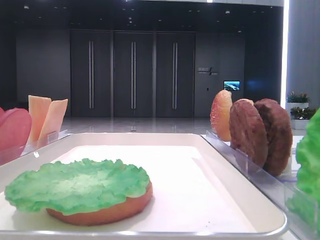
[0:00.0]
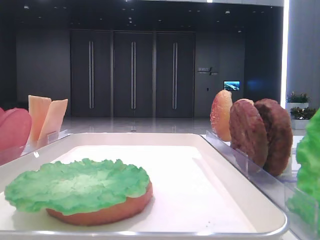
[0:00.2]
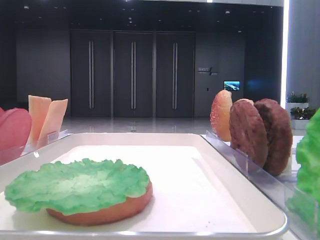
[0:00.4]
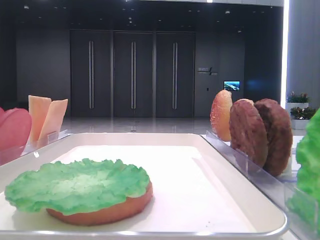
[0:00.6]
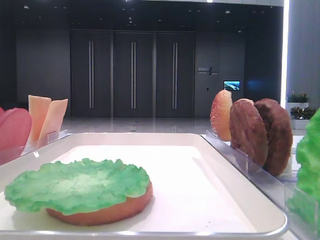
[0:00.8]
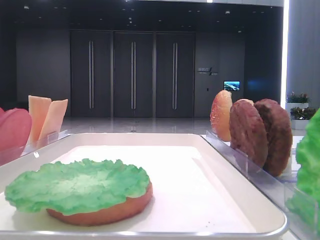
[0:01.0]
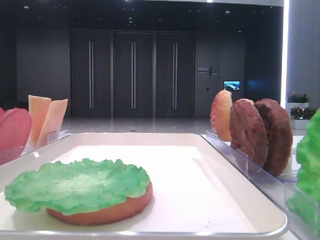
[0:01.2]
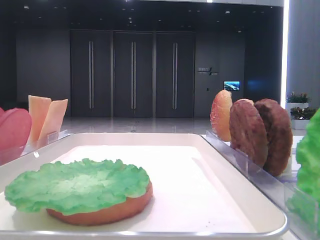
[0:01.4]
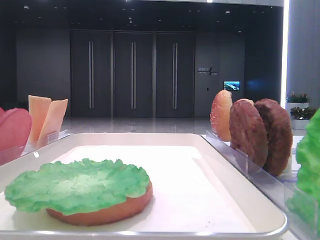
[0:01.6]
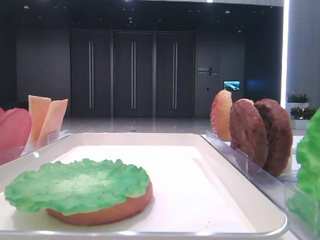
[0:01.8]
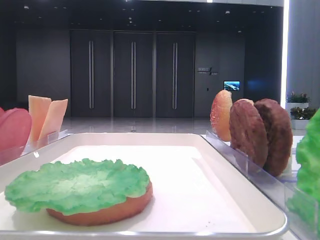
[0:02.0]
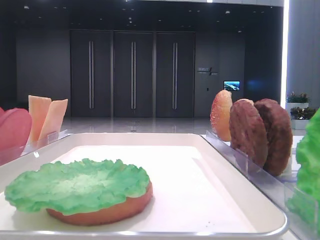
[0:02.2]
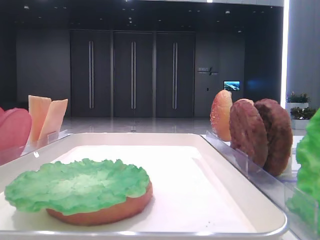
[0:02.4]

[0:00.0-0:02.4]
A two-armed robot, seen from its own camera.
0:01.2 to 0:02.4: Both grippers stay put.

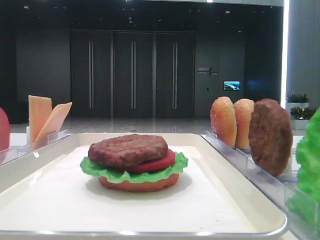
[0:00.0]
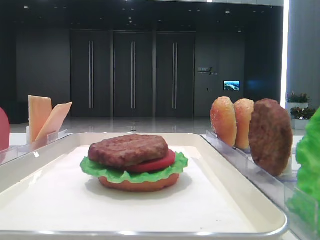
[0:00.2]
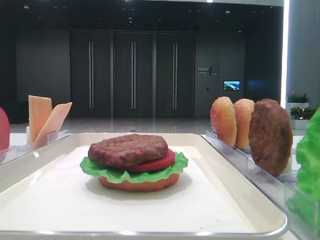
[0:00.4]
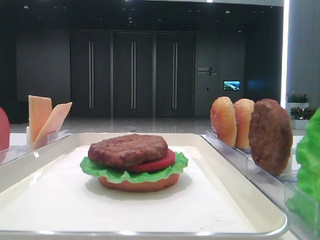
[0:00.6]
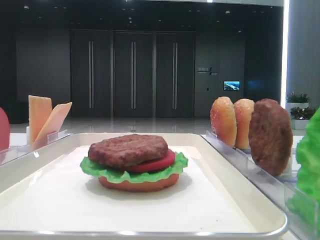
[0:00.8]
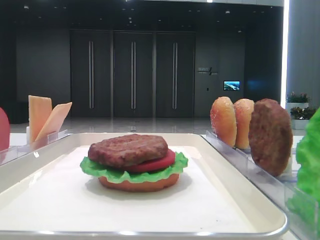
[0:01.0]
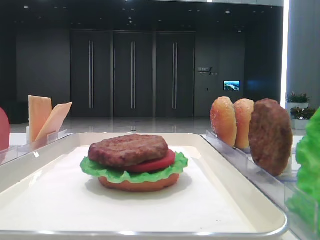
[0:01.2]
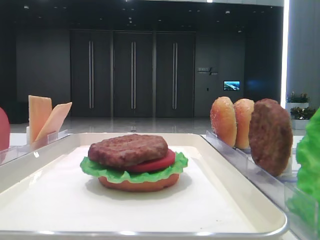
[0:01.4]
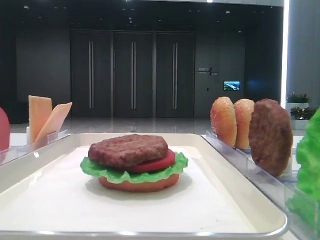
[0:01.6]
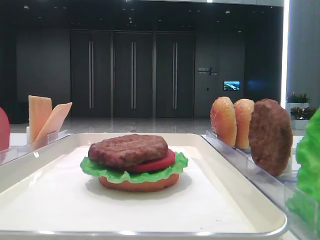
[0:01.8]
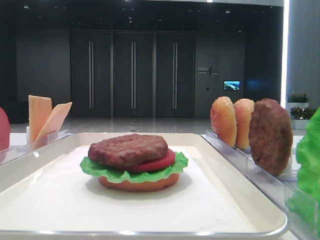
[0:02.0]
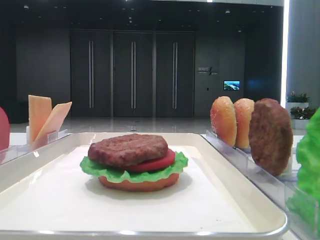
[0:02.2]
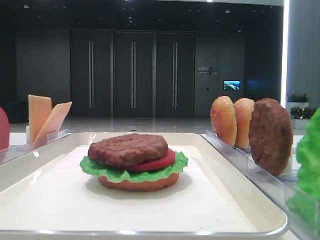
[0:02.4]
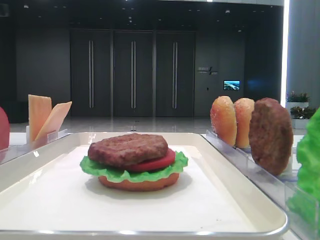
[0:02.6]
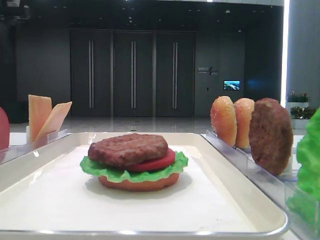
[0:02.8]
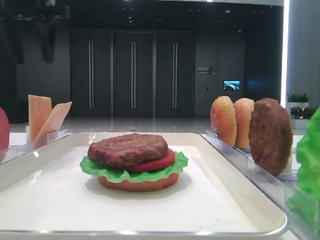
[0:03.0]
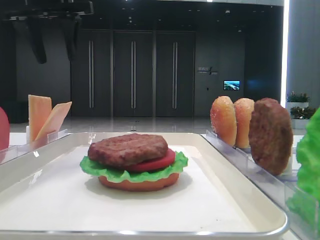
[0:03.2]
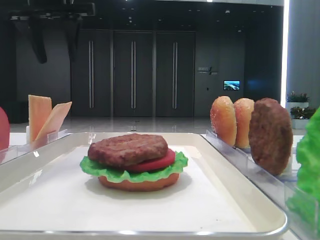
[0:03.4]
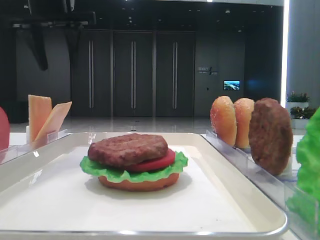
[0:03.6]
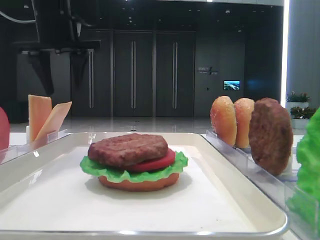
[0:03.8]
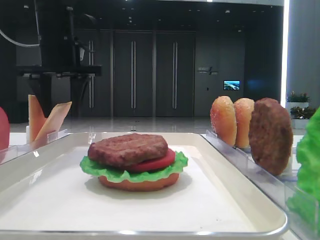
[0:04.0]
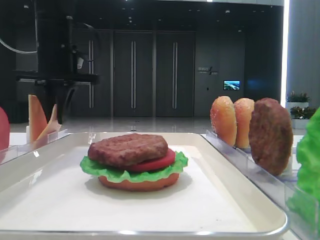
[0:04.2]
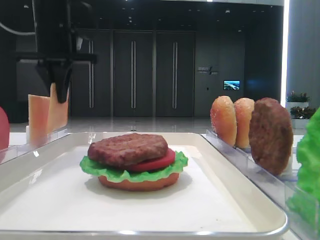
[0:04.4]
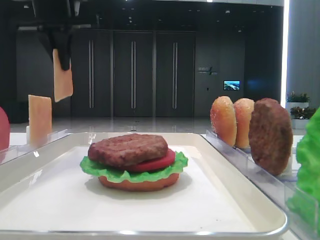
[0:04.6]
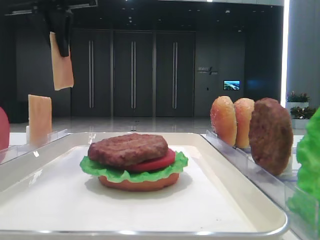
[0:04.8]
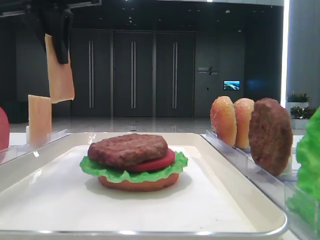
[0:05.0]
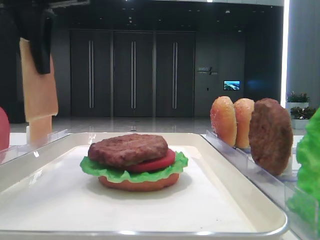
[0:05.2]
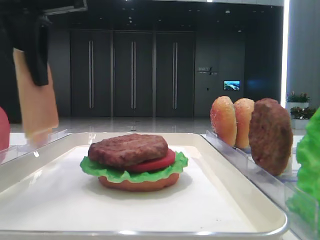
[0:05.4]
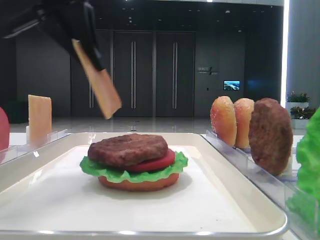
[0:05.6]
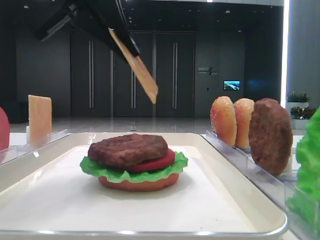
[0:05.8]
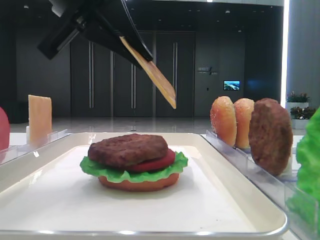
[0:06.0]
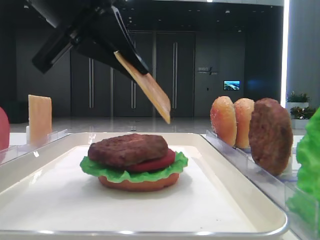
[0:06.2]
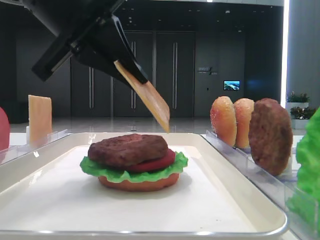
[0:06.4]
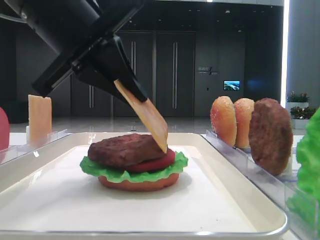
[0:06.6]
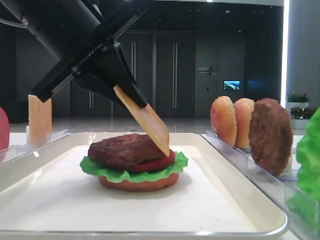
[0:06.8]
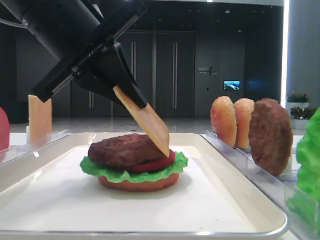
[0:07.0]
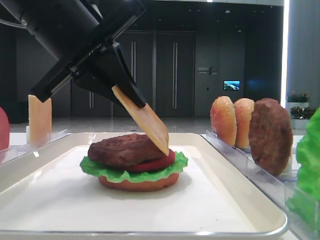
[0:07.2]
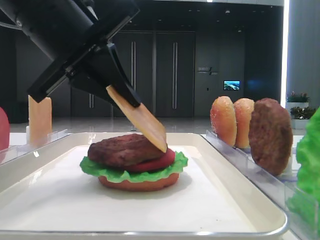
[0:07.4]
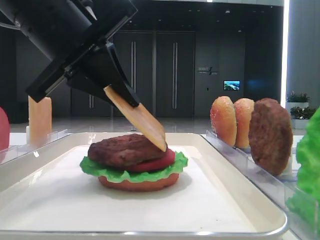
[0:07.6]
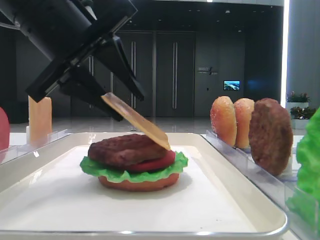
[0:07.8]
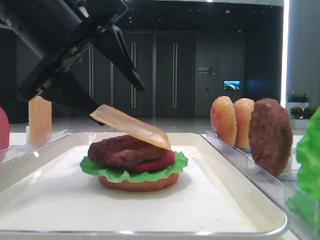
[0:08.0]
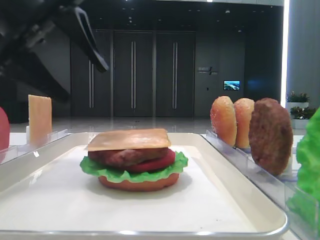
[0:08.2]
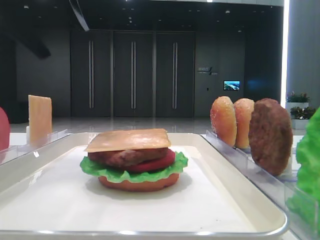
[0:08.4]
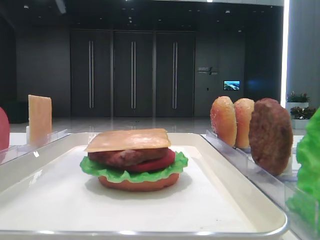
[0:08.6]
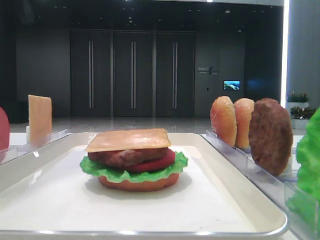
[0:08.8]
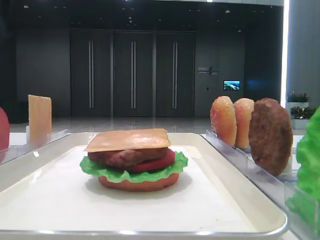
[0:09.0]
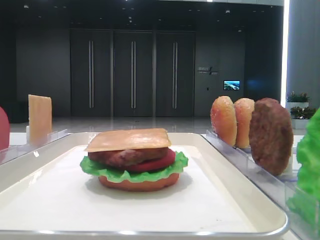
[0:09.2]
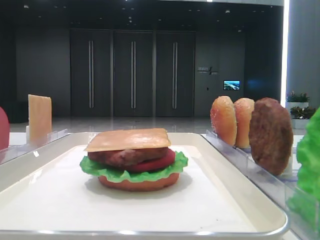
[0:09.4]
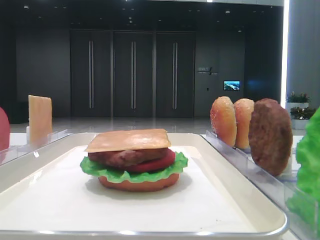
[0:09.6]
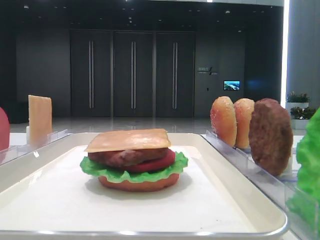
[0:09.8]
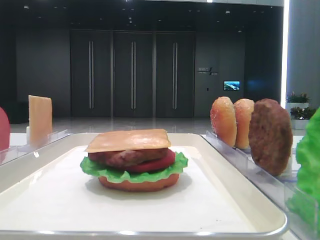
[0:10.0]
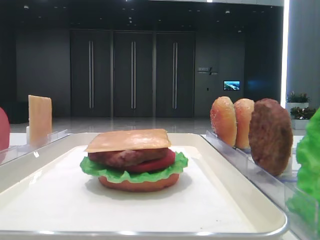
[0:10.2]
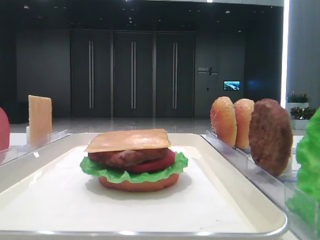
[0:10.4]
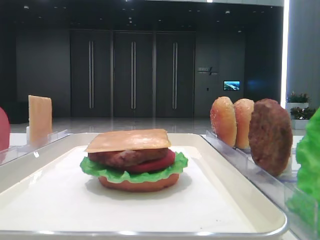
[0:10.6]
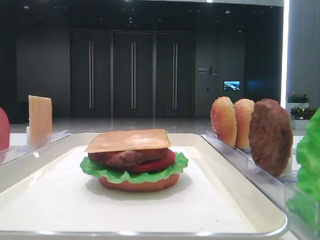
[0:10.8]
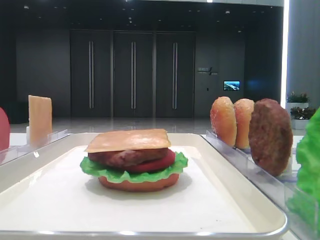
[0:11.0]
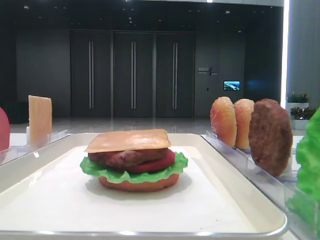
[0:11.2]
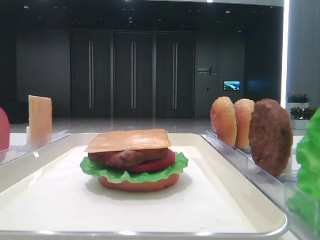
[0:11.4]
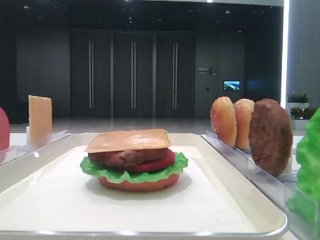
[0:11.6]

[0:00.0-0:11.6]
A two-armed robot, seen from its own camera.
Step, 0:00.0 to 0:04.2: Pick up the cheese slice with the left hand.
Step, 0:04.4 to 0:08.0: Place the cheese slice on the patty with the left hand.
0:01.4 to 0:02.8: The left gripper goes approximately 40 cm forward.
0:02.8 to 0:04.4: The left gripper moves to the right and downward, roughly 15 cm, and closes its fingers.
0:04.4 to 0:05.8: The left gripper heads backward and to the right, covering roughly 20 cm.
0:05.8 to 0:07.2: The left gripper is displaced downward by about 5 cm.
0:07.2 to 0:08.8: The left gripper goes about 20 cm upward, to the left and forward, and opens.
0:08.8 to 0:10.2: The left gripper travels backward by approximately 25 cm.
